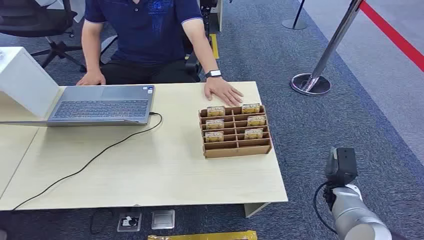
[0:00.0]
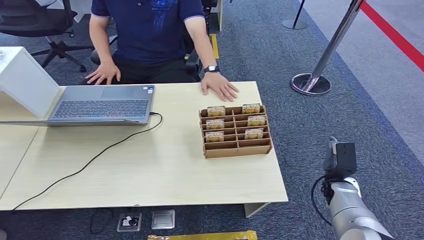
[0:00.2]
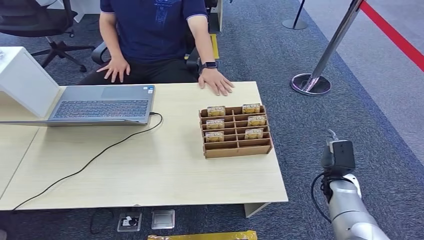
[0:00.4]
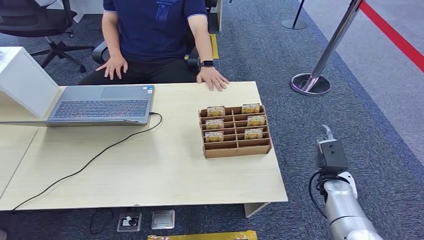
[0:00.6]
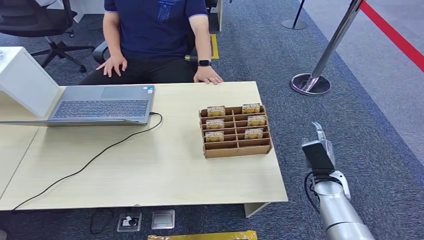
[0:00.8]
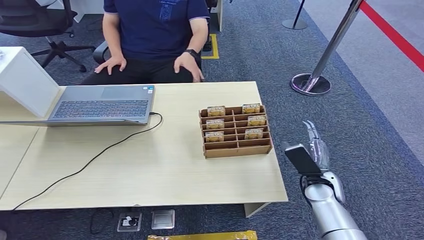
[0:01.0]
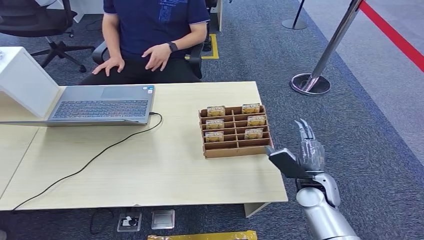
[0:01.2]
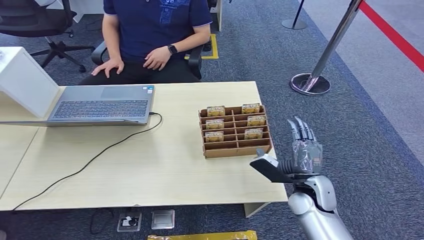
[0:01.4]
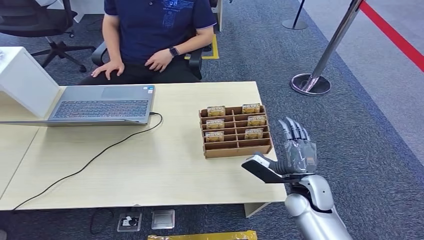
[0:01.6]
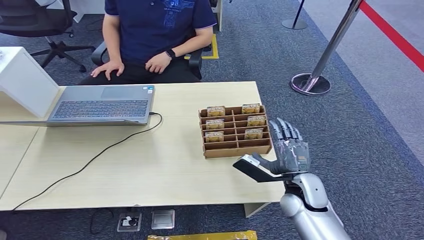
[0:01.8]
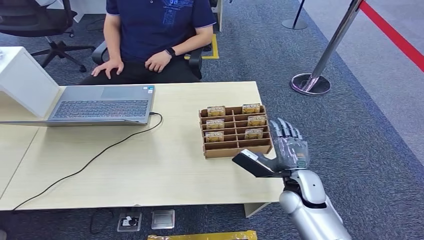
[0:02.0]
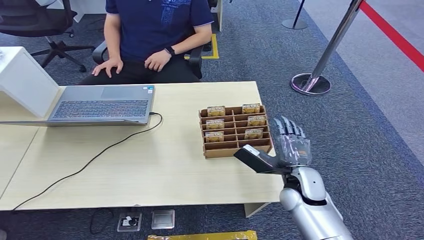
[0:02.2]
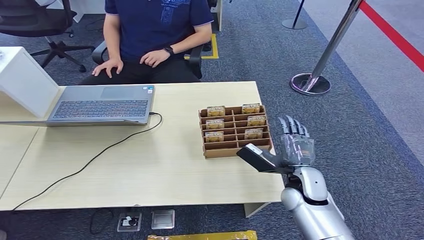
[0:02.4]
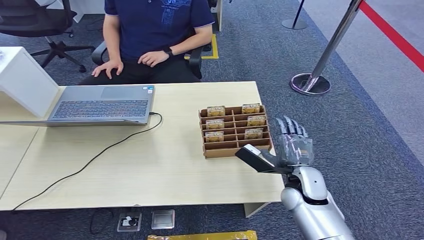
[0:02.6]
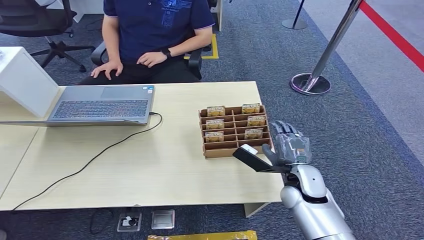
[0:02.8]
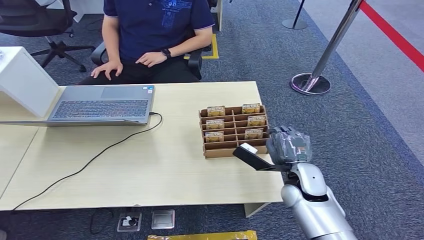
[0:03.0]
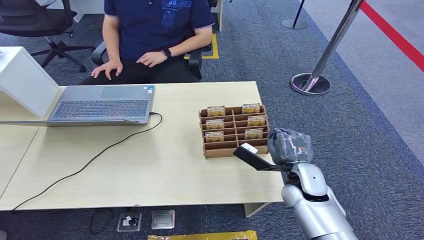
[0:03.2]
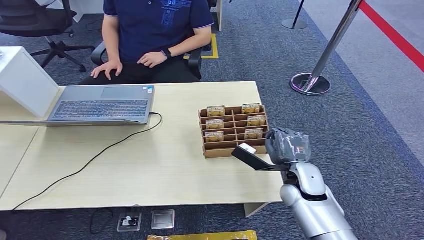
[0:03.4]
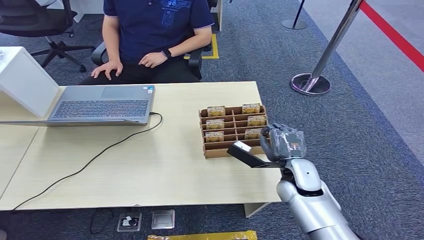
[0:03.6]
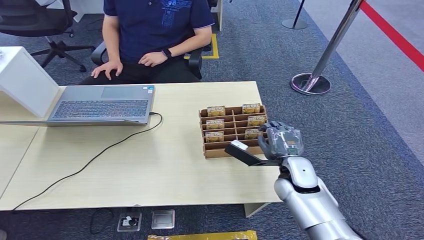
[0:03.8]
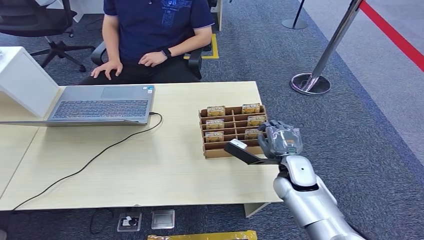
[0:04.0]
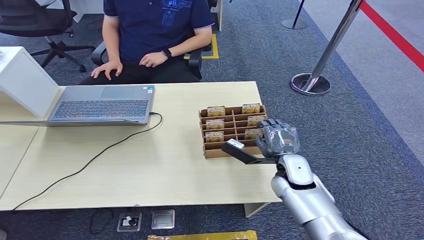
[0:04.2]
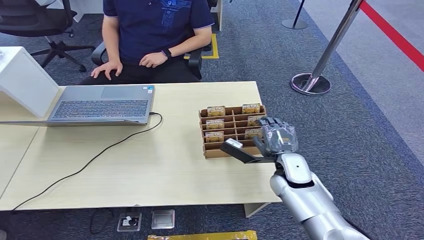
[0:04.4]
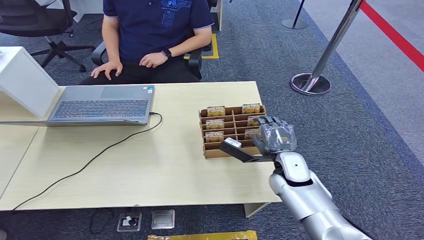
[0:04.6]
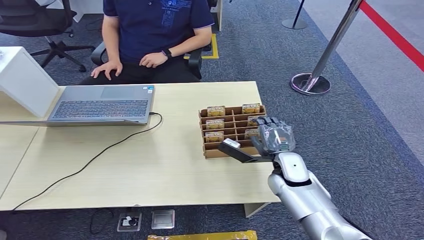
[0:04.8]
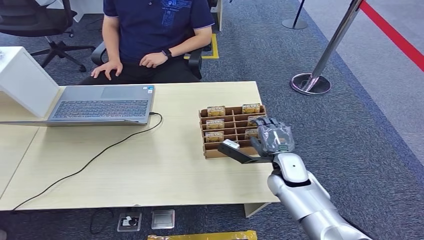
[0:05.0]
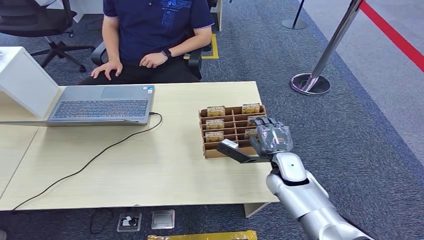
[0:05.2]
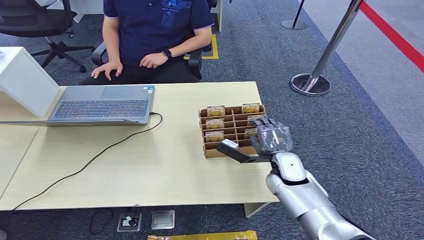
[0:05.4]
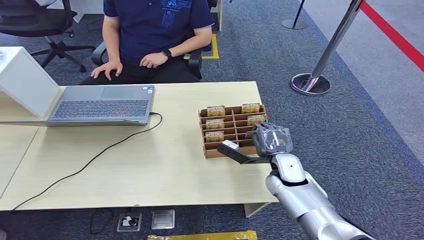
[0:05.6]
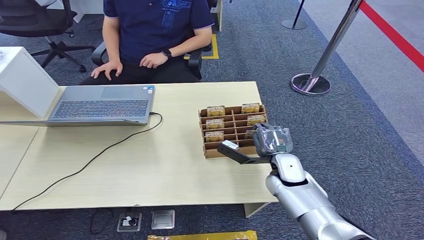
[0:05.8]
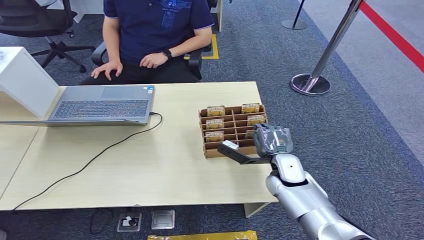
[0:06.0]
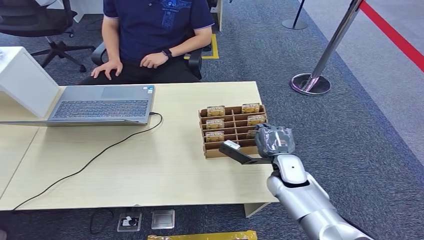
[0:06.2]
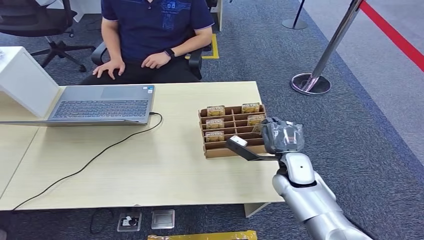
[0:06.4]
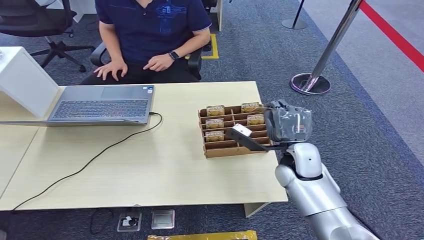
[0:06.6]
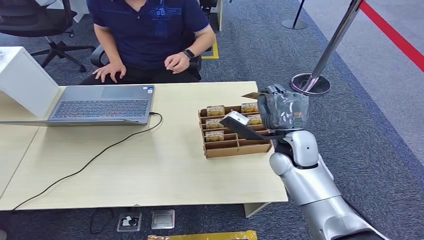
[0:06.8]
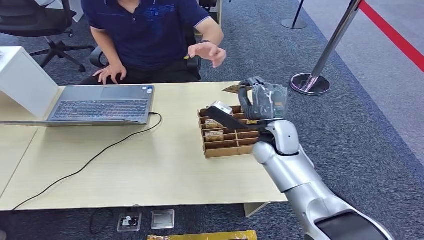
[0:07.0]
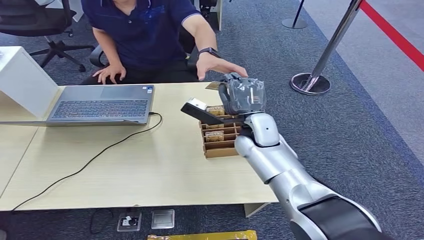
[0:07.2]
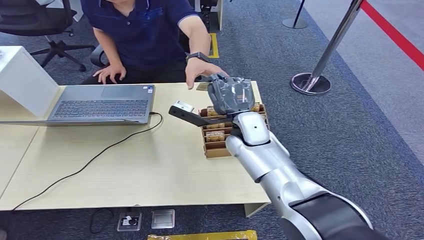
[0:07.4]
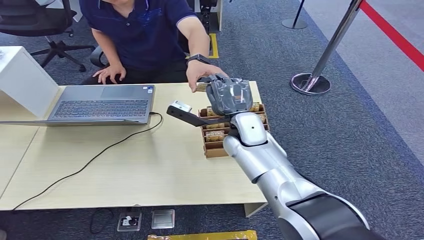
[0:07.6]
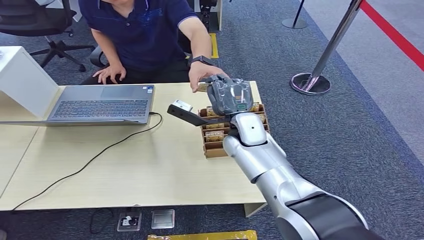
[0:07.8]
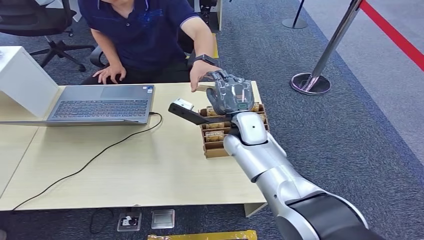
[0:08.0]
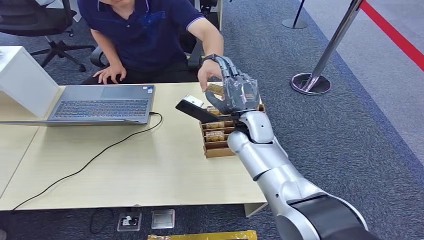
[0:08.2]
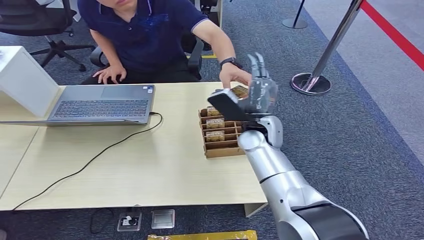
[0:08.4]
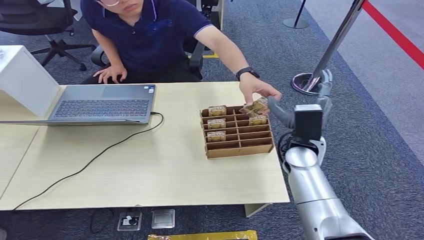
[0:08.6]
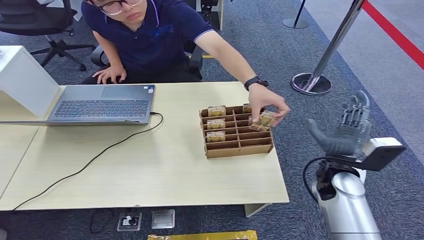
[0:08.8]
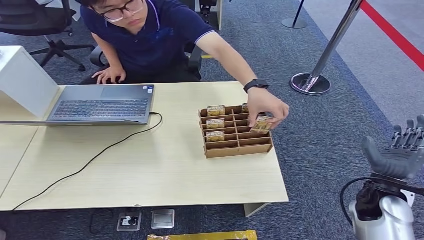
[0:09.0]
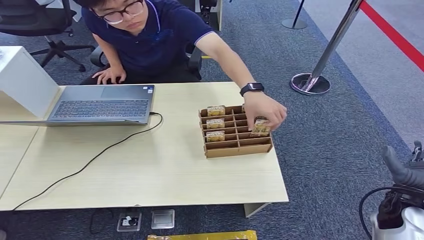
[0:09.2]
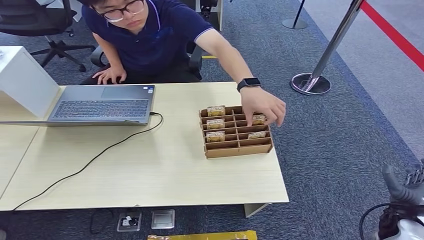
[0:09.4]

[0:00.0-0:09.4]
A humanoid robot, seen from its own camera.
Step, 0:00.0 to 0:07.0: Pick up the key card from the card box.
Step, 0:07.2 to 0:09.4: Hand the key card to the target.
0:01.6 to 0:03.2: There are only small adjustments of the hands.
0:03.2 to 0:06.2: There are only small adjustments of the hands.
0:06.2 to 0:07.8: The right hand moves upward, to the left and forward, about 20 cm.
0:07.8 to 0:09.4: The right hand goes roughly 40 cm to the right, backward and downward.
